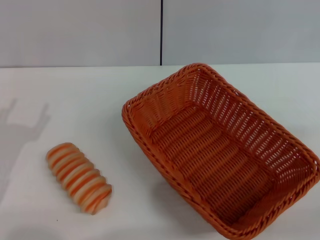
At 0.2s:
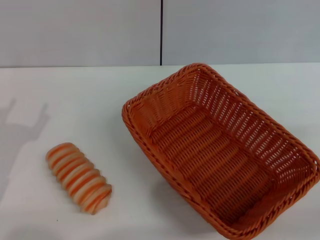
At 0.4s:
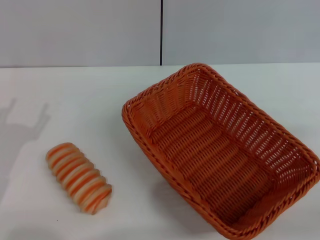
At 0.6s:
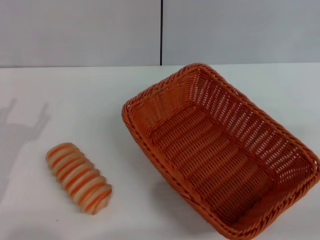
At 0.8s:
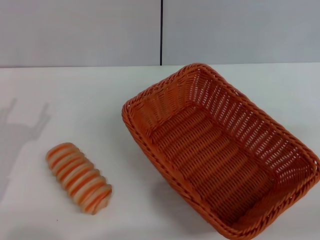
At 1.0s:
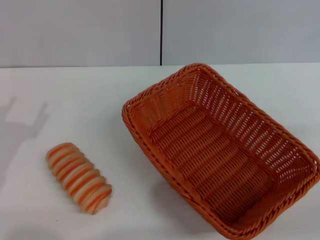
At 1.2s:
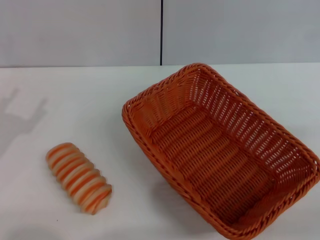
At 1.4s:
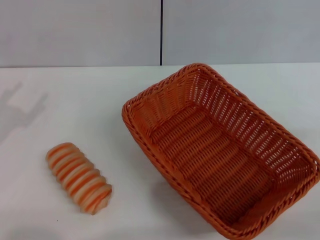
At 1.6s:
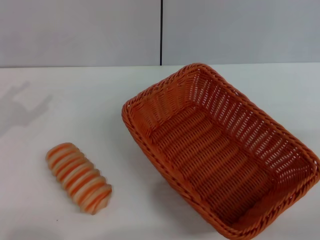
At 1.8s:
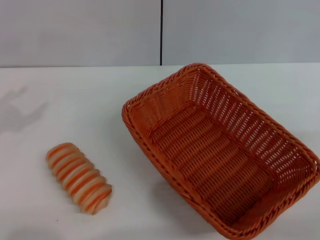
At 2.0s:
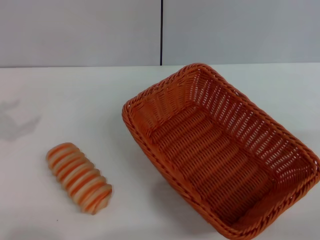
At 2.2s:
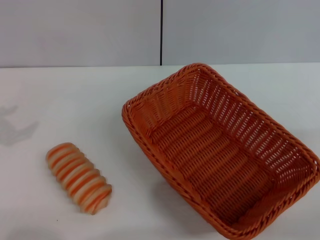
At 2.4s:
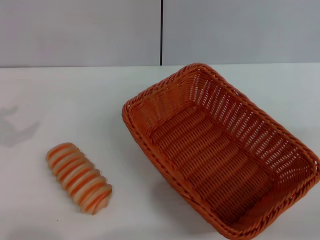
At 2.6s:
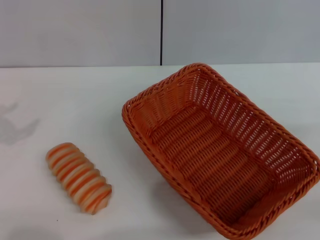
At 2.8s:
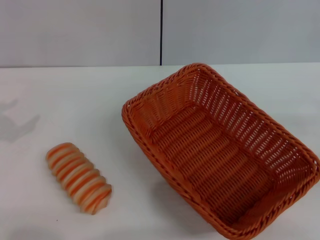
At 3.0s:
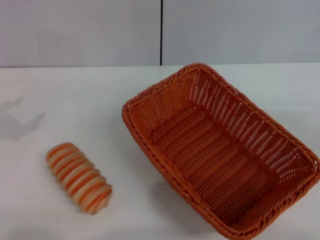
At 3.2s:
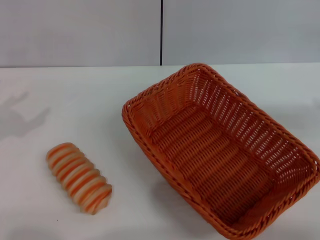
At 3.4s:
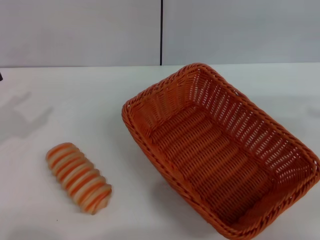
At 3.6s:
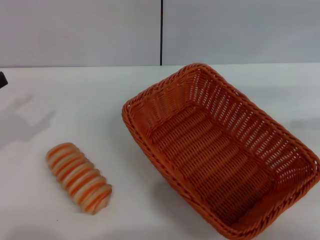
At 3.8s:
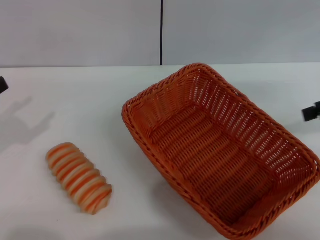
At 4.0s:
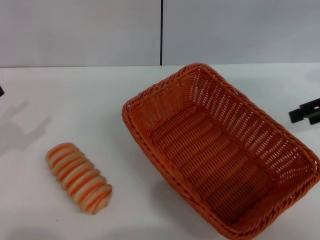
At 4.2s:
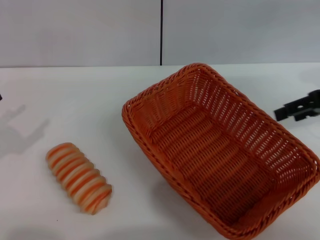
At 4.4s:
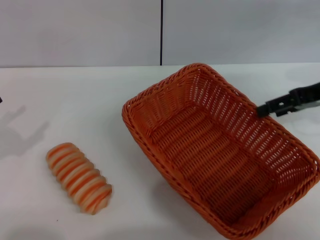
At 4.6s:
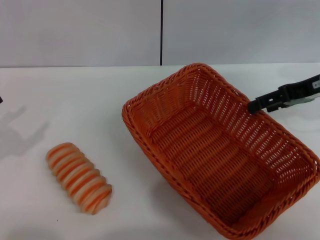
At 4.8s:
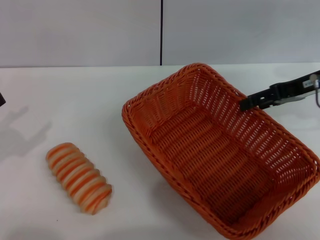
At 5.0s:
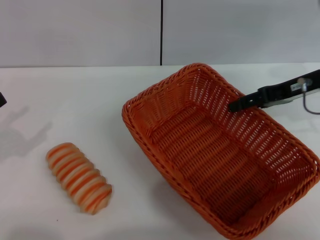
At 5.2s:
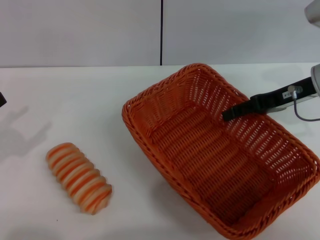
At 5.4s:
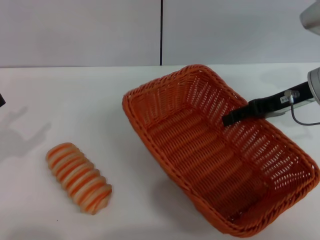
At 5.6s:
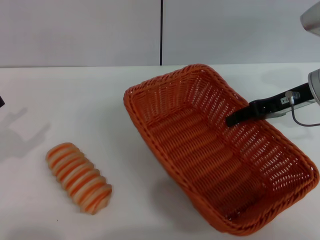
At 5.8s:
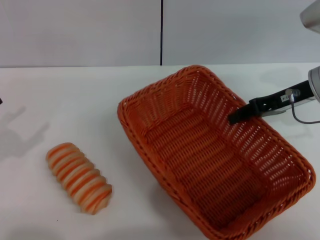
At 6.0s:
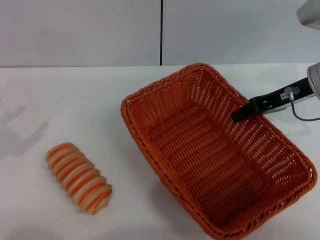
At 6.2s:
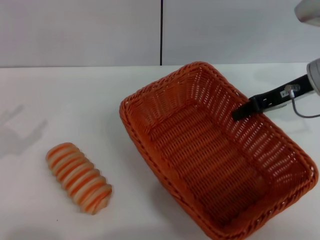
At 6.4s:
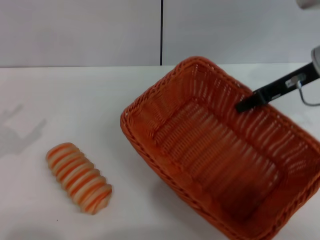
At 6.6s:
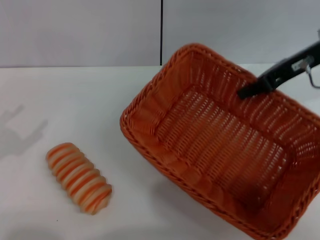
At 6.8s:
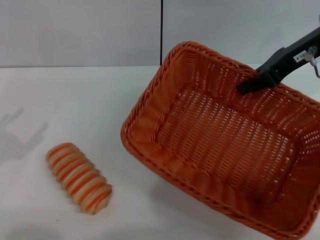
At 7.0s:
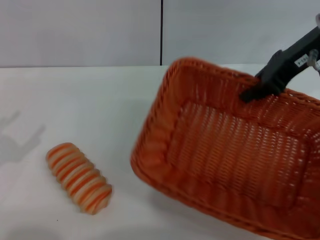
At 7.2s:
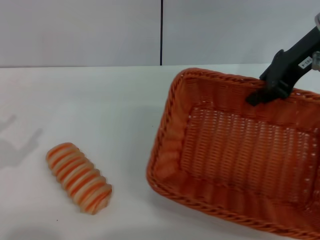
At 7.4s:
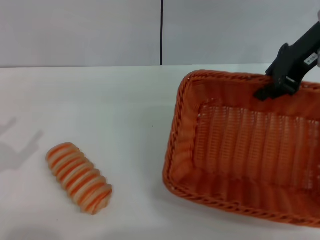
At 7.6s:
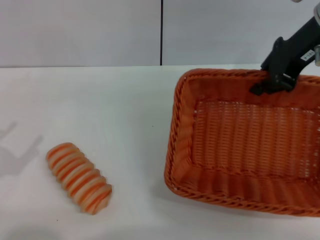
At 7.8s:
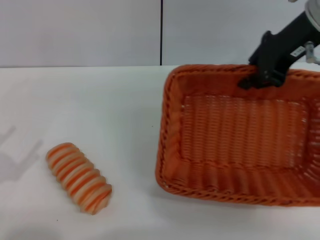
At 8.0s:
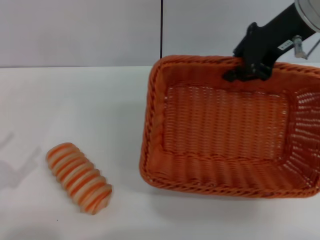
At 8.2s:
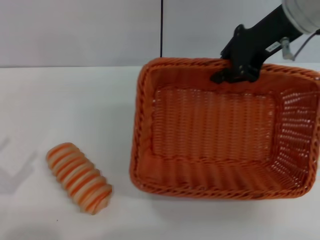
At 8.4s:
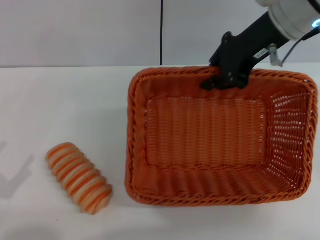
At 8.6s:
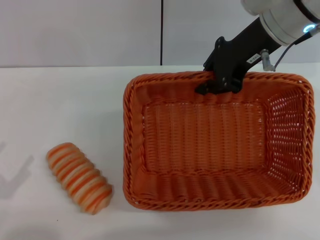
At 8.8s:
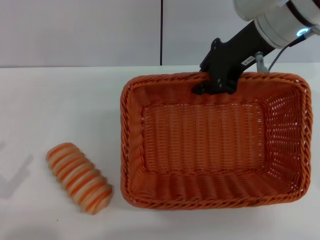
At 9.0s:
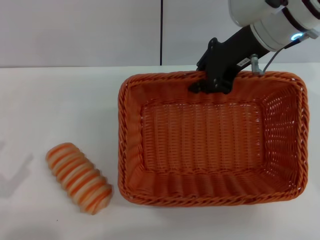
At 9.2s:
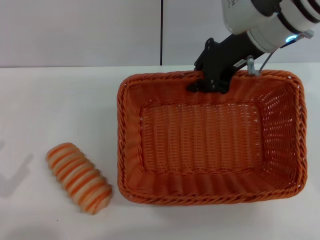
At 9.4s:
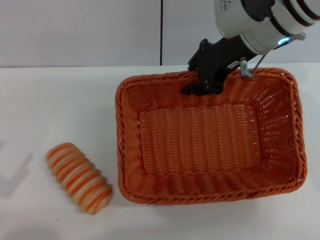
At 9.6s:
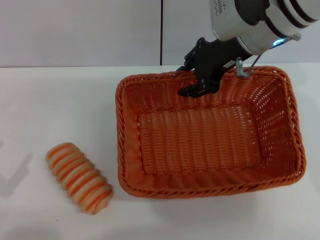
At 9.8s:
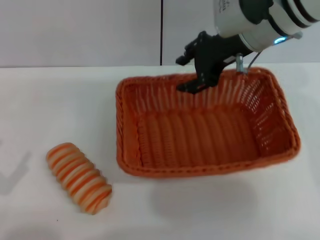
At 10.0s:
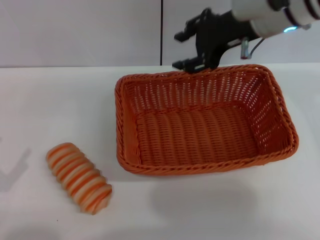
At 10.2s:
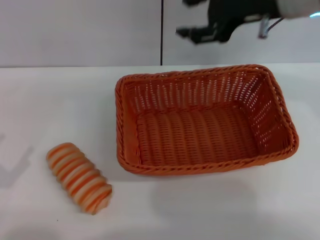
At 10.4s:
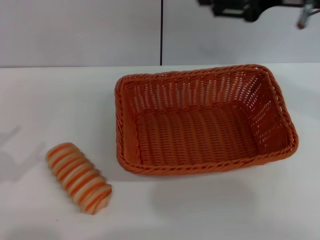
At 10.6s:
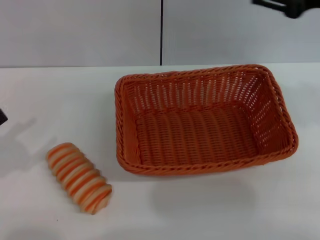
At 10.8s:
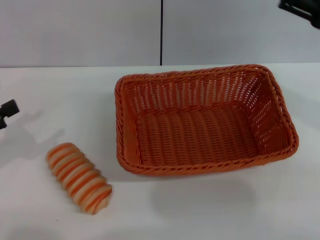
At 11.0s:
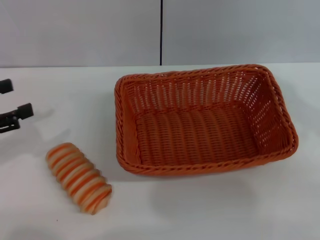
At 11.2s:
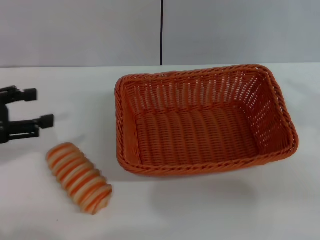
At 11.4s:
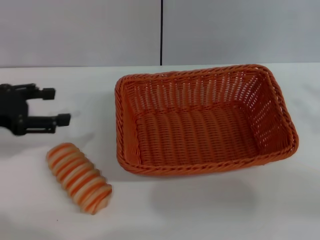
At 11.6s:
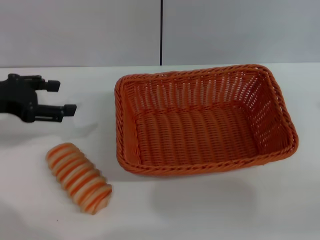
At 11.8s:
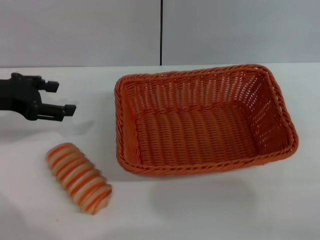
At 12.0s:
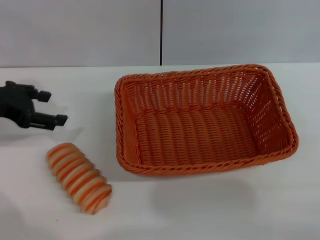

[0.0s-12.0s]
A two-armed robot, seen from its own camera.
Step, 0.0s to 6.6s: Pick up the light basket with the right gripper.
Step, 6.8s to 9.8s: Place the light basket in the center of view with the right gripper.
3.0s to 4.4s: The right gripper shifts roughly 20 cm to the left and forward.
4.4s to 6.0s: The right gripper goes approximately 5 cm to the left, and closes.
6.0s to 7.6s: The left gripper moves approximately 5 cm; the right gripper travels upward by roughly 10 cm.
7.6s to 9.0s: The right gripper shifts roughly 5 cm to the left.
9.0s to 10.4s: The right gripper heads to the right, backward and upward, covering some 10 cm, and opens.
10.4s to 12.0s: The right gripper heads to the right, backward and downward, covering about 30 cm. Meanwhile the left gripper travels forward and upward by some 20 cm.

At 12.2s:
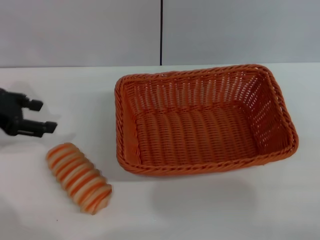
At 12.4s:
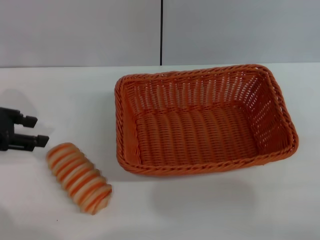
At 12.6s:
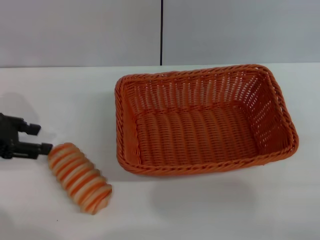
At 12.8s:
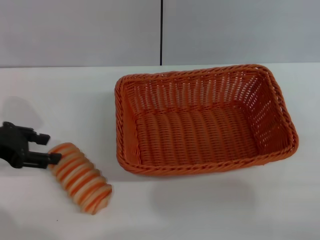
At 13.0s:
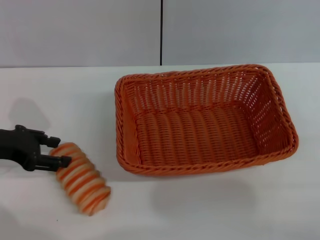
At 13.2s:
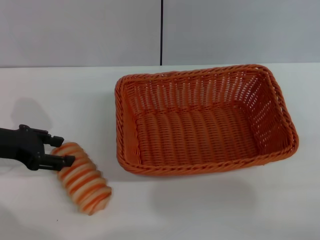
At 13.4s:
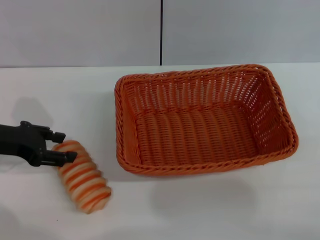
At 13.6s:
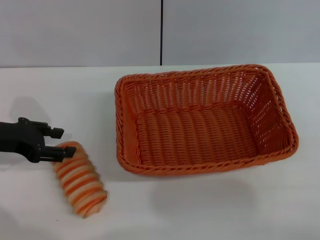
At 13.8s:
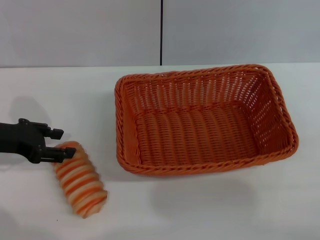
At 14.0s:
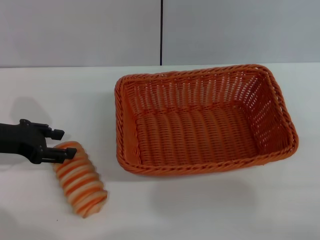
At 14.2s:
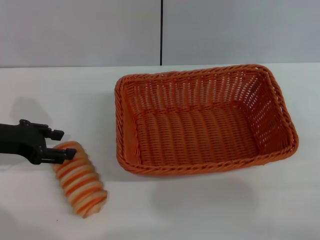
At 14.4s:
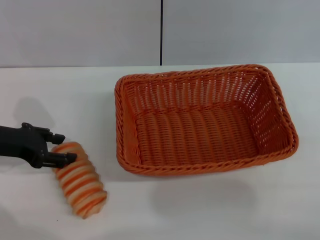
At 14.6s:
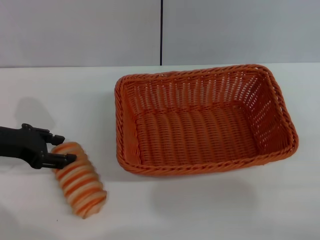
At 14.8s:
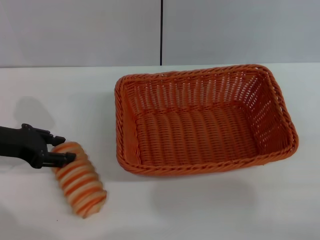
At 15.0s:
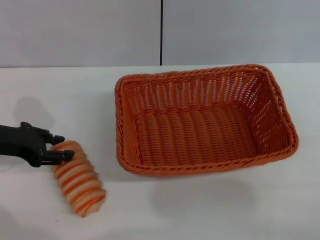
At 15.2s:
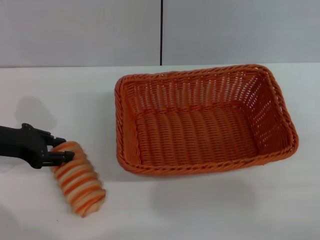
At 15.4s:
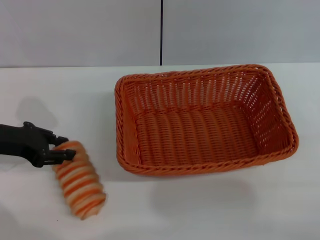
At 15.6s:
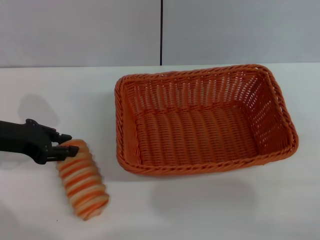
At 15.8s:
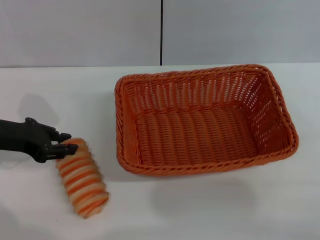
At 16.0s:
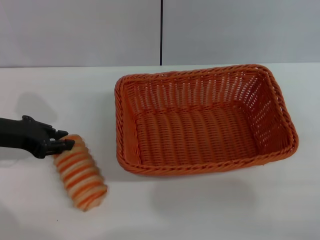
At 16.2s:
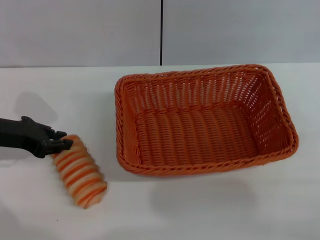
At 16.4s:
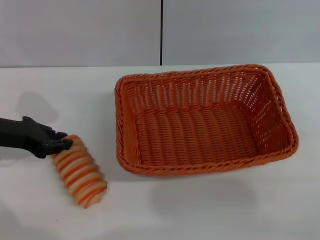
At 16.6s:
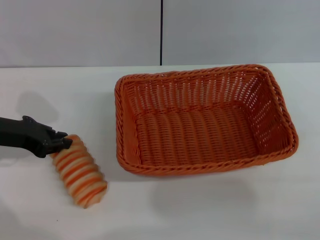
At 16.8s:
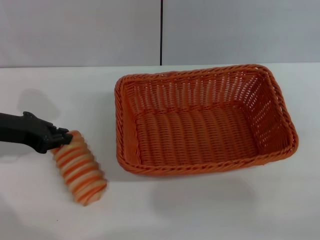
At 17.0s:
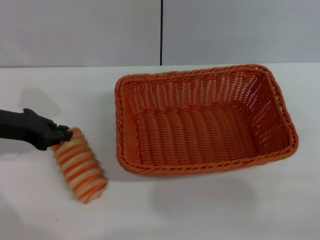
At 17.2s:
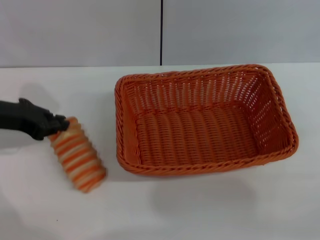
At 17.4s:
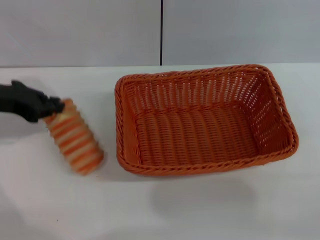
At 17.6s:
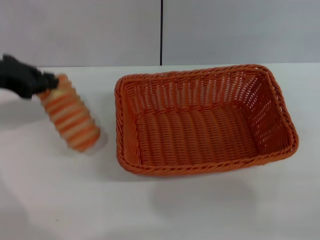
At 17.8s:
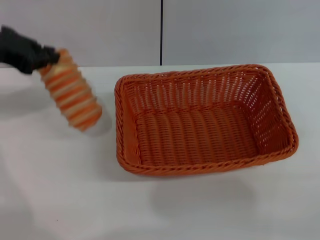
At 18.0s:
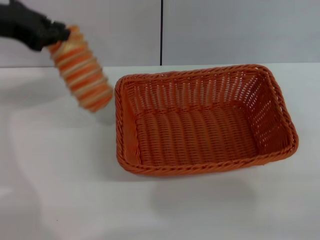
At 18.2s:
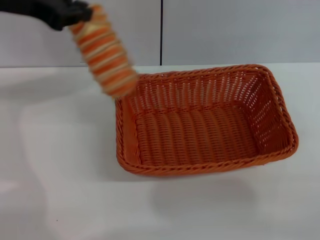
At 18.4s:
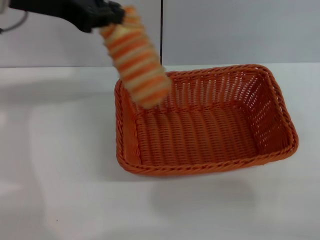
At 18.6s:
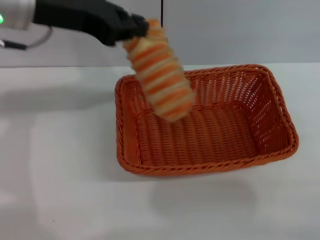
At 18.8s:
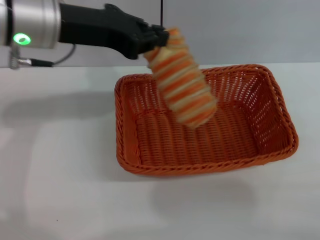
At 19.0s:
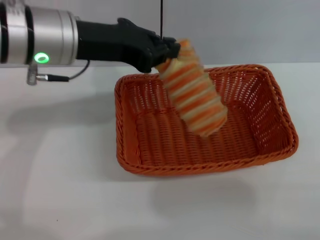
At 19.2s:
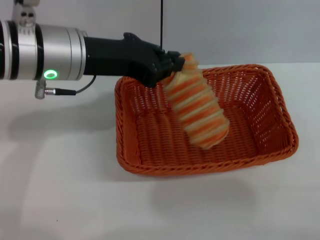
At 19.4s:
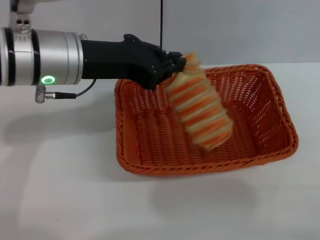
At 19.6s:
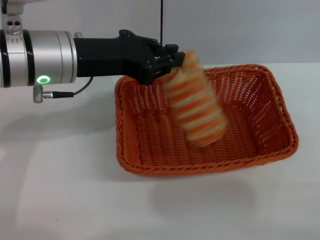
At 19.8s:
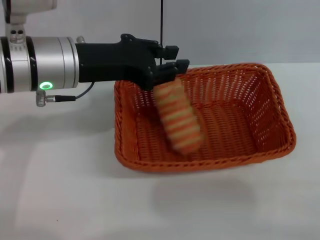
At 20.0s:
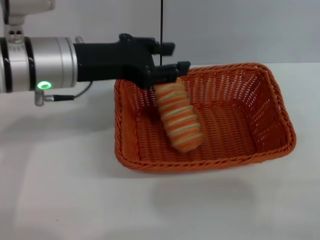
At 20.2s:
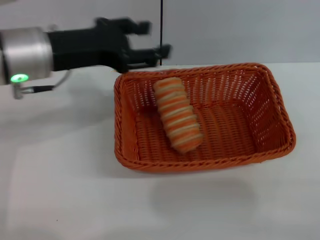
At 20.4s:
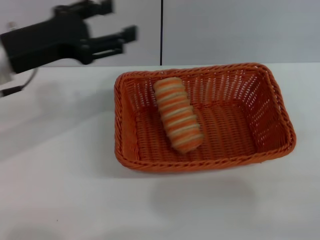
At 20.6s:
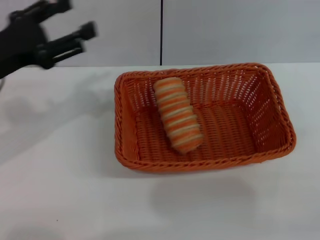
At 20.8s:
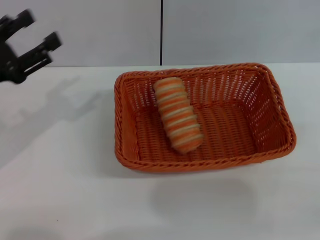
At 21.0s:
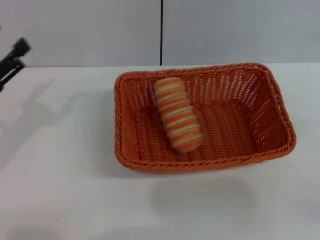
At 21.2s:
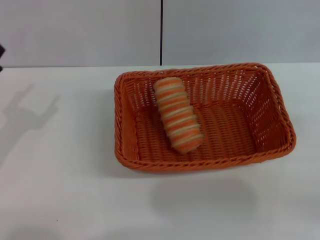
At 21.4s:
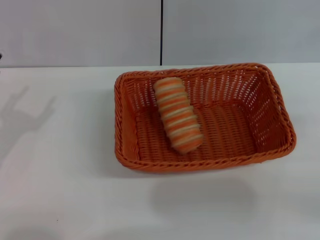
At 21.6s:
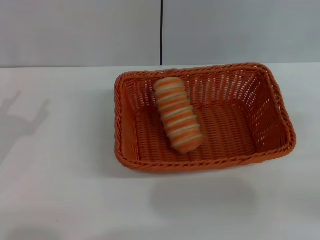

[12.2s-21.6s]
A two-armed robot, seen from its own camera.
Step, 12.2s to 17.6s: Pick up the long bread with the left gripper.
Step, 17.8s to 19.8s: Place the long bread into the light basket with the left gripper.
12.2s to 13.8s: The left gripper is displaced downward by approximately 5 cm.
13.8s to 15.4s: Neither gripper changes place.
15.4s to 17.0s: The left gripper closes its fingers.
17.0s to 18.4s: The left gripper moves upward and to the right, about 20 cm.
18.4s to 20.0s: The left gripper heads downward, covering roughly 10 cm, and opens up.
20.0s to 21.6s: The left gripper goes roughly 25 cm to the left, downward and backward, and opens up.
